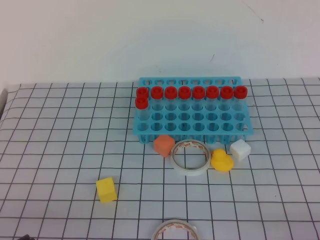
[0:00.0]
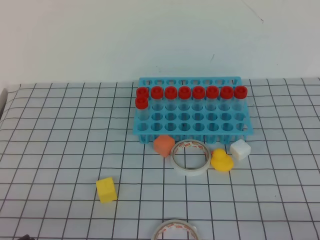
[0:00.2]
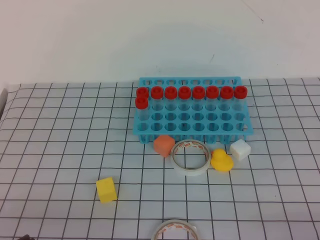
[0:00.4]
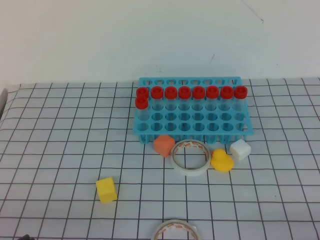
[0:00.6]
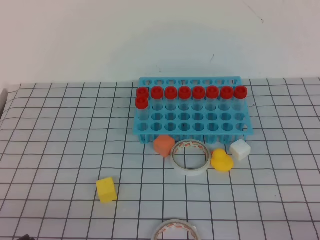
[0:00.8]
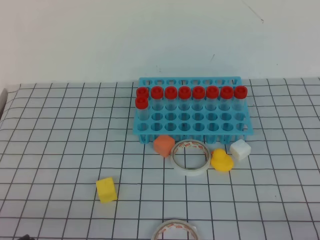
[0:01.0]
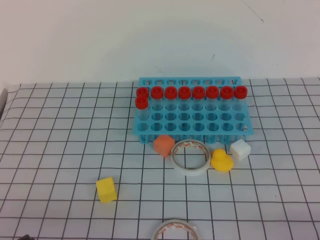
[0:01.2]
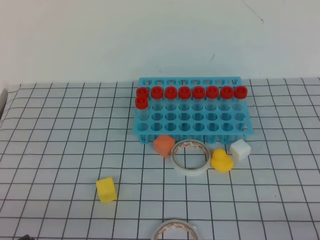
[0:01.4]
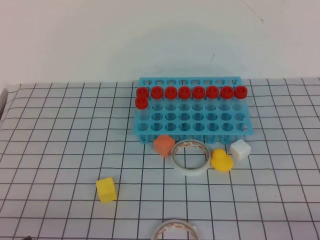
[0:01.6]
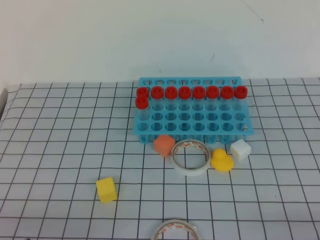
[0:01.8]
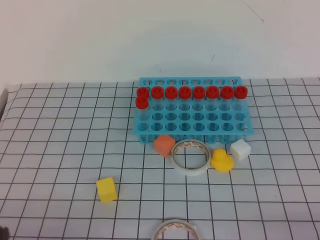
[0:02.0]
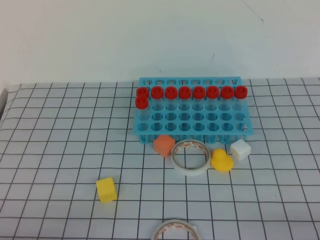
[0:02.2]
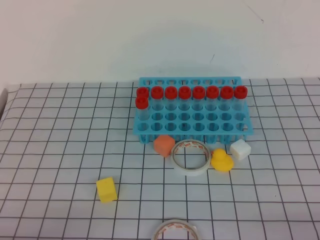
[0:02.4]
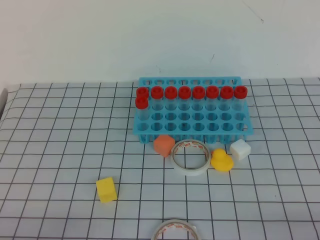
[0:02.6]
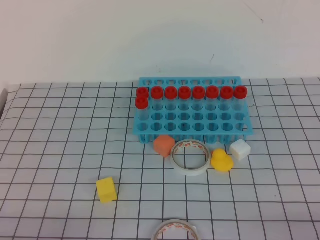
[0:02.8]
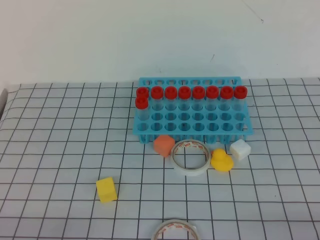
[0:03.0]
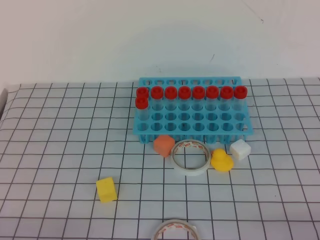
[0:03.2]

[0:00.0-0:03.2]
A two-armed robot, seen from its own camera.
0.0 to 1.6 s: Neither gripper changes place.

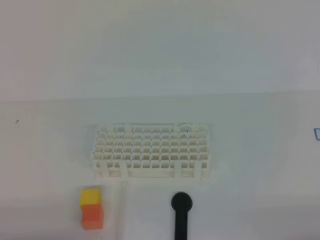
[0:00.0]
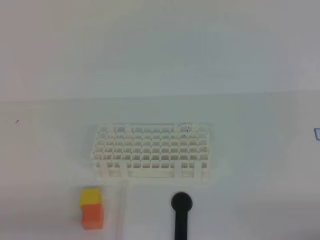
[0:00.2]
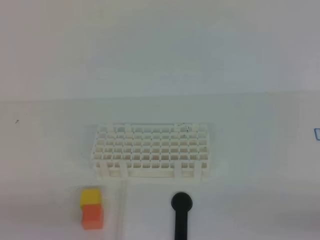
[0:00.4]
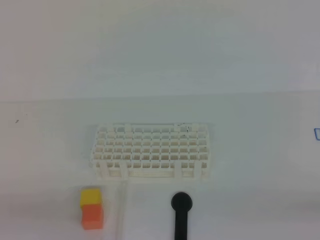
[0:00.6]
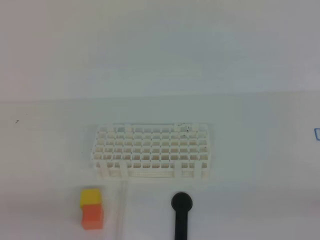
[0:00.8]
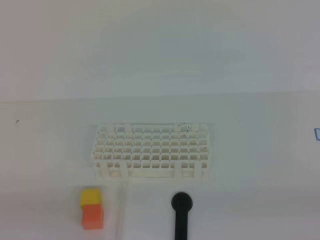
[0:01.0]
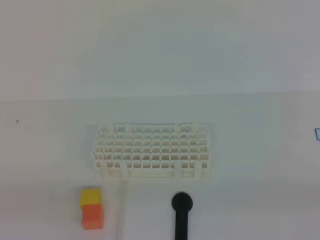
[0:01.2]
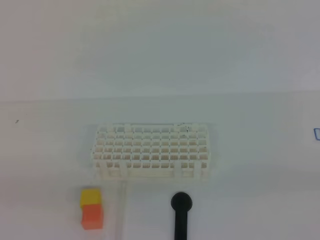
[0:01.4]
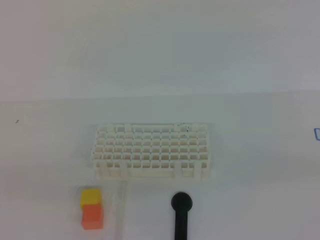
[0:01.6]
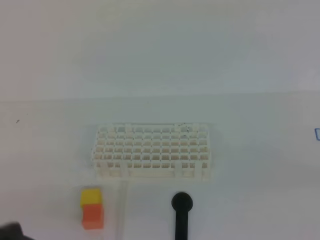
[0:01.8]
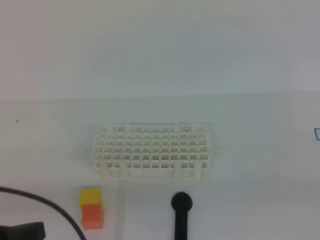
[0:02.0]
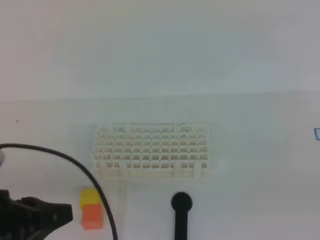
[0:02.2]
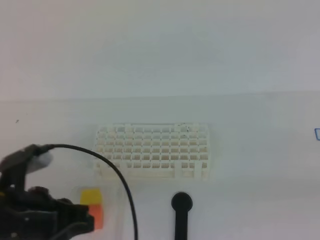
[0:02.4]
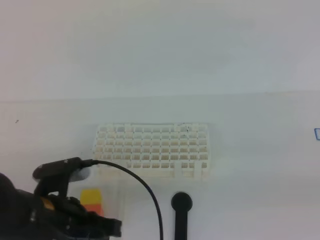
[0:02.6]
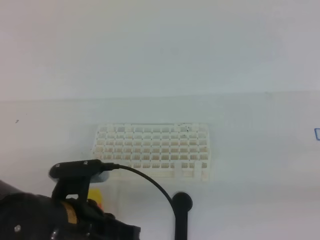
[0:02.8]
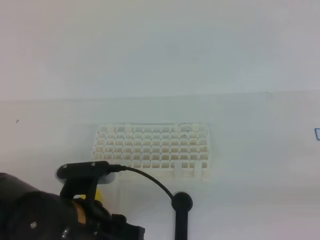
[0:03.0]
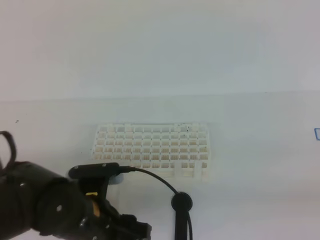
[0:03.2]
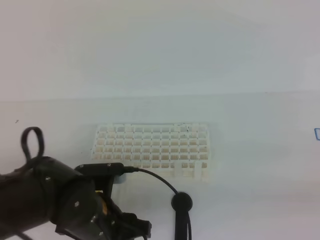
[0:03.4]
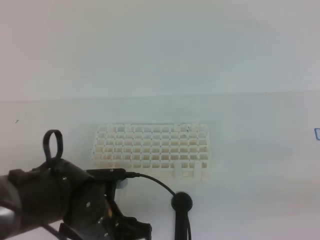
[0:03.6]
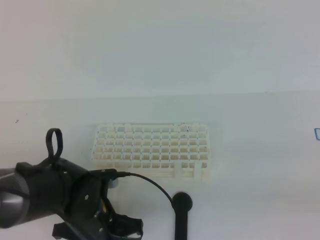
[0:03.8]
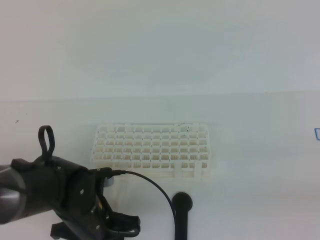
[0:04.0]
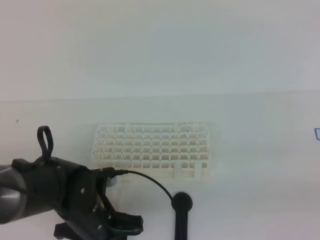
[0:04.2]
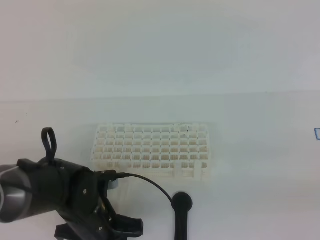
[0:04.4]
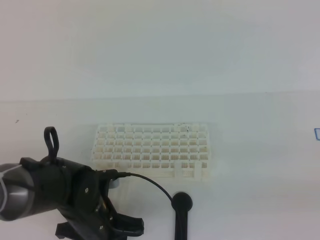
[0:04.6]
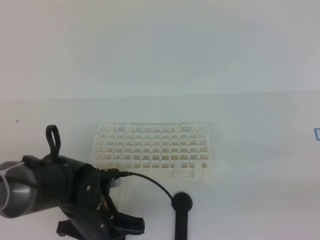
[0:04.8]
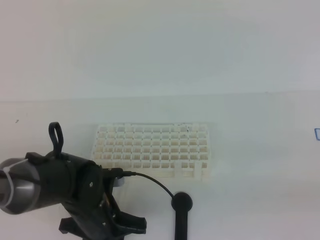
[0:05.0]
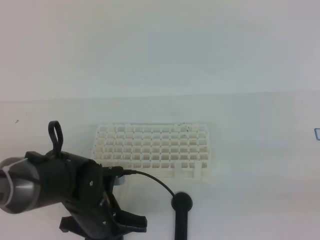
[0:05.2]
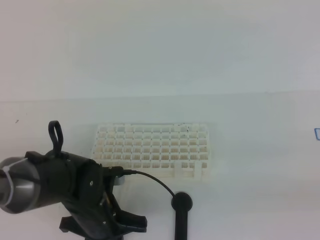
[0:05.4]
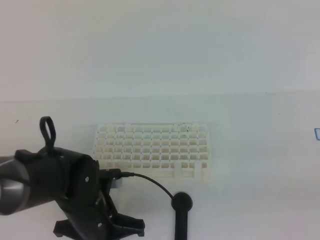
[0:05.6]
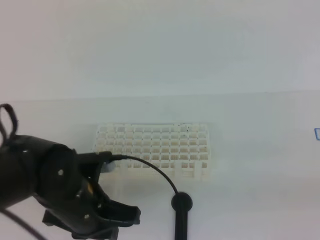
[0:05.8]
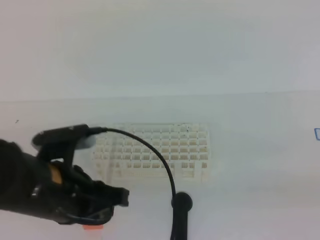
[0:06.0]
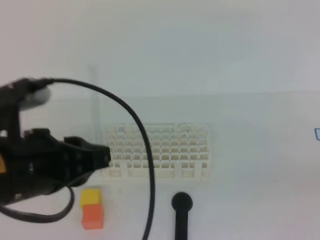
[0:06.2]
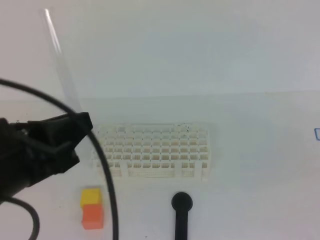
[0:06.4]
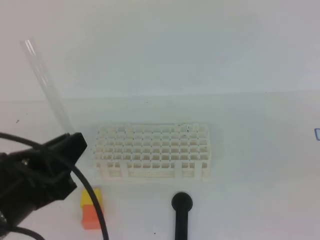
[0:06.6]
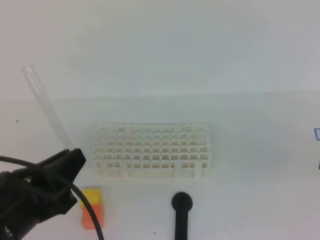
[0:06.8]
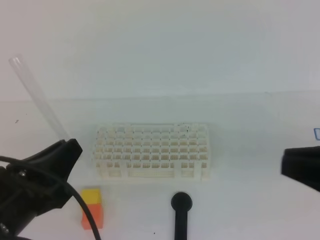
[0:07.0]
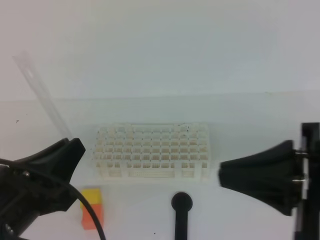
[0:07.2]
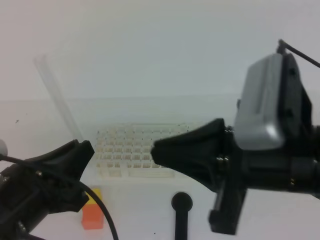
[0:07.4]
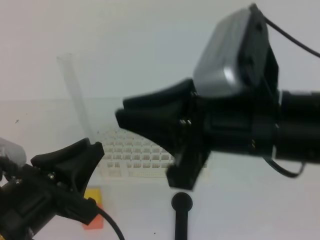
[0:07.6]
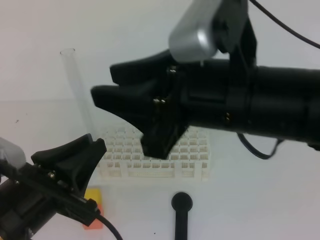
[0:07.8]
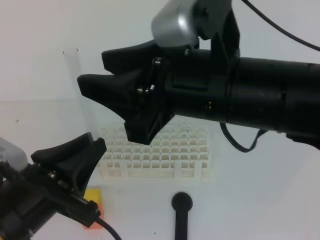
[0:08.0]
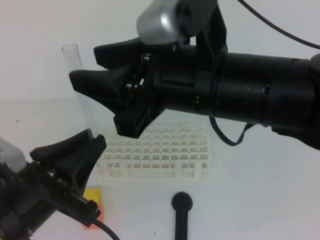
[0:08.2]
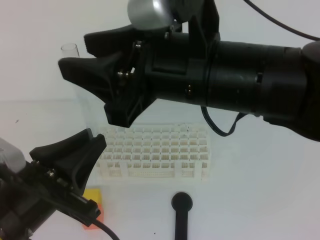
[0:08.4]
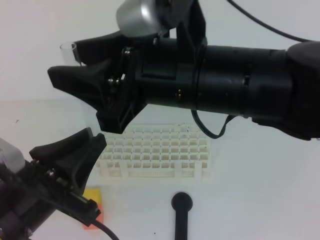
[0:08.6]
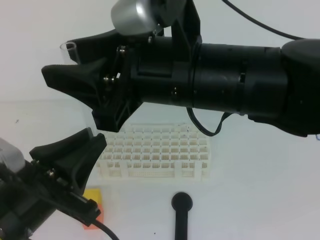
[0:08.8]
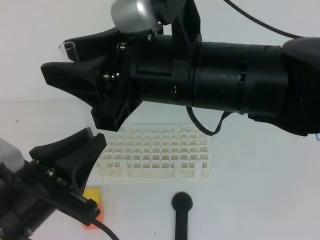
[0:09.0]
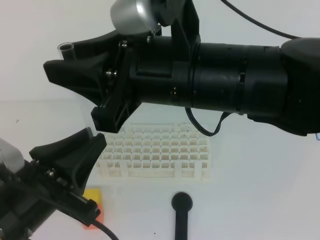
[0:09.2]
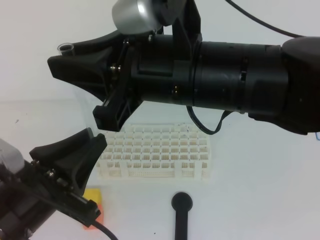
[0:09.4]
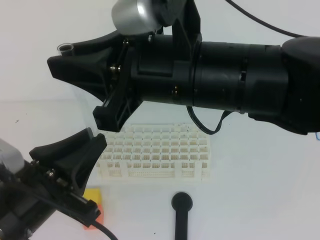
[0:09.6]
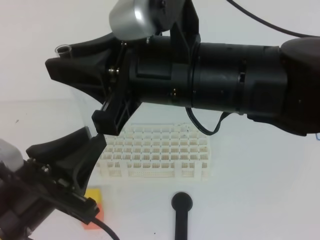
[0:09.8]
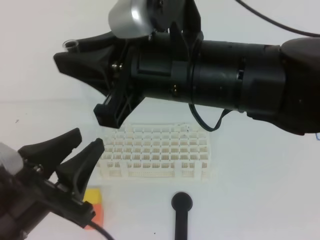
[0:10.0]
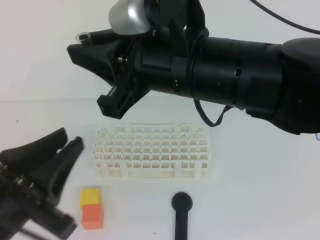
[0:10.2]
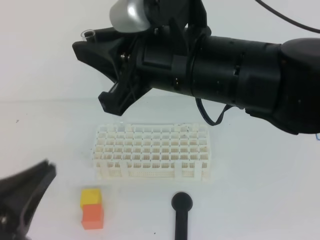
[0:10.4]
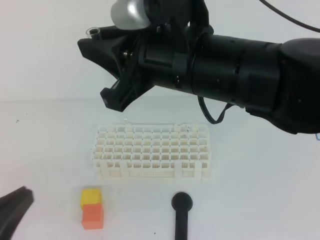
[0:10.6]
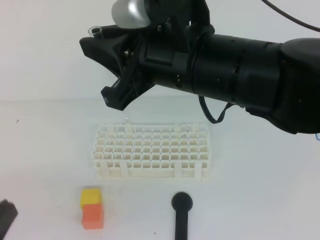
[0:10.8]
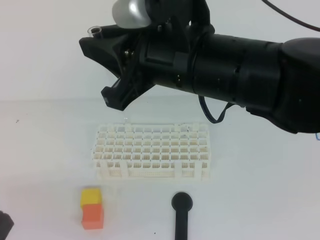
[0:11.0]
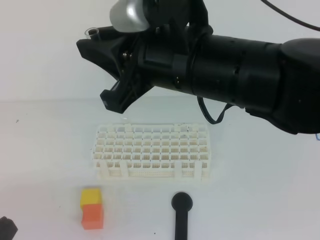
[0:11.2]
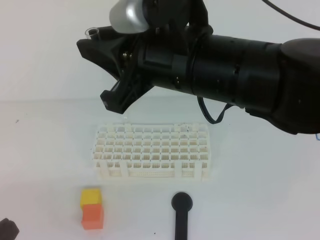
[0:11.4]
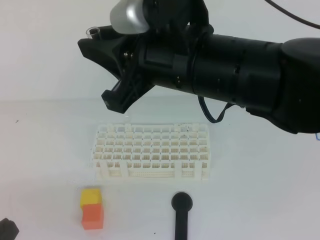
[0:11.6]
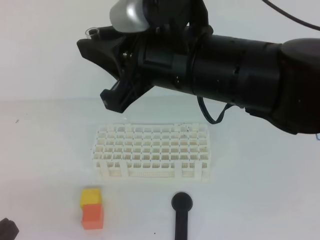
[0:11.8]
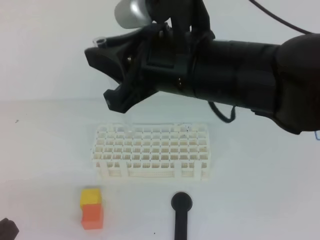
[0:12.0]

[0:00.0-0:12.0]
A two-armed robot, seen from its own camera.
1.6 to 3.0 s: The left gripper goes roughly 20 cm to the right, forward and downward, and opens its fingers.
3.0 to 4.4 s: The left gripper is displaced downward and forward by about 10 cm.
4.4 to 6.0 s: The left gripper goes some 15 cm upward, and closes.
6.0 to 7.6 s: The right gripper goes some 25 cm to the left and forward; the left gripper heads backward, covering approximately 5 cm.
7.6 to 9.0 s: The right gripper moves to the left, about 5 cm, and opens.
9.0 to 10.4 s: The right gripper closes, while the left gripper shifts by about 5 cm, and opens and closes again.
10.4 to 12.0 s: The left gripper shifts by about 10 cm.

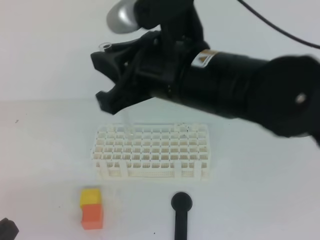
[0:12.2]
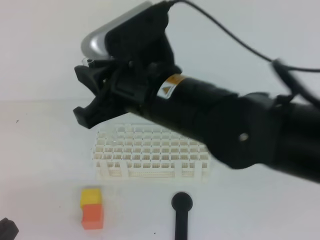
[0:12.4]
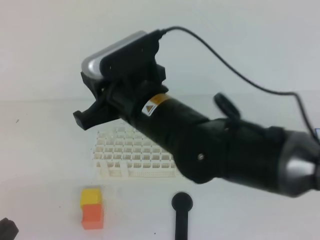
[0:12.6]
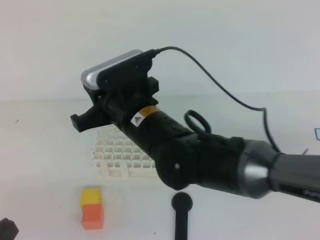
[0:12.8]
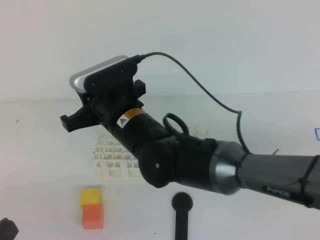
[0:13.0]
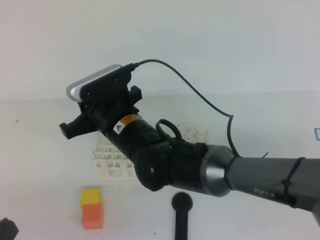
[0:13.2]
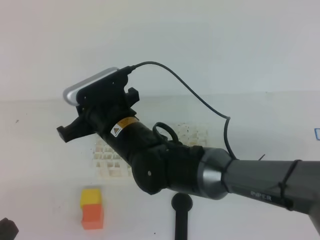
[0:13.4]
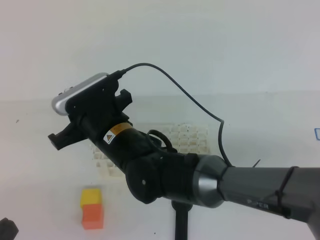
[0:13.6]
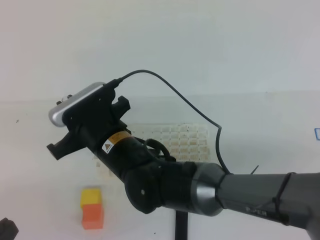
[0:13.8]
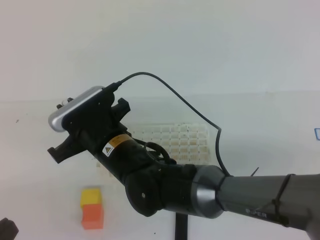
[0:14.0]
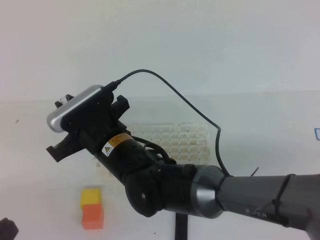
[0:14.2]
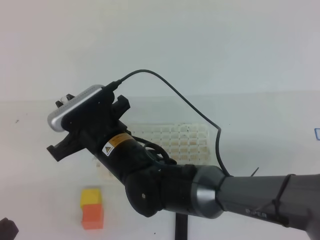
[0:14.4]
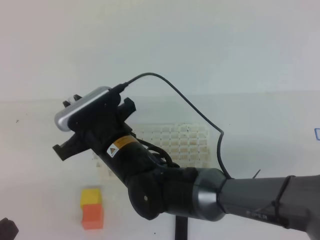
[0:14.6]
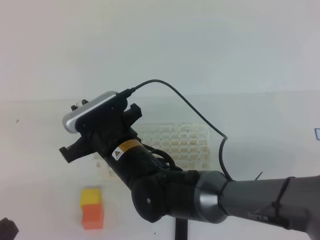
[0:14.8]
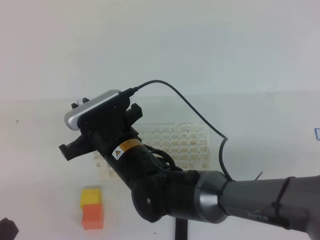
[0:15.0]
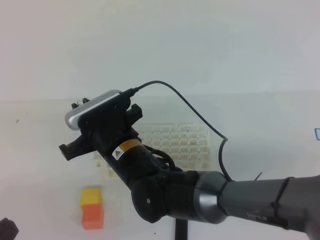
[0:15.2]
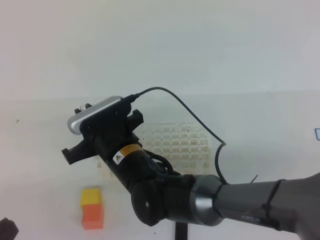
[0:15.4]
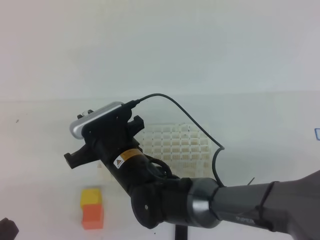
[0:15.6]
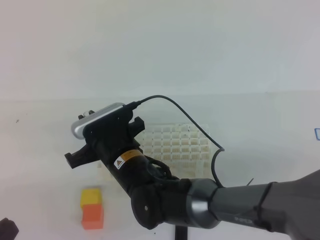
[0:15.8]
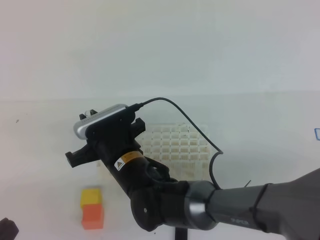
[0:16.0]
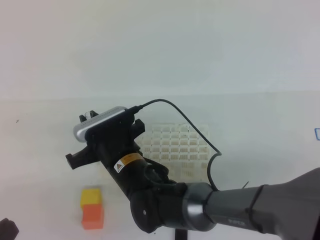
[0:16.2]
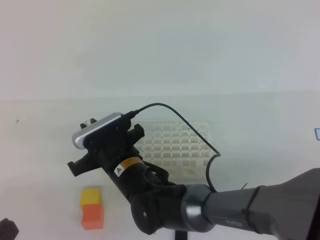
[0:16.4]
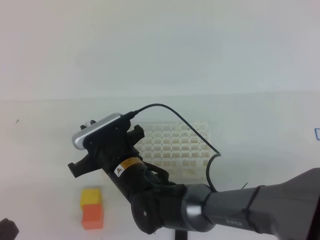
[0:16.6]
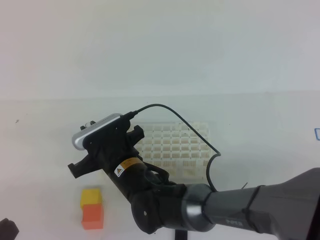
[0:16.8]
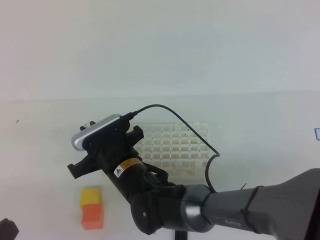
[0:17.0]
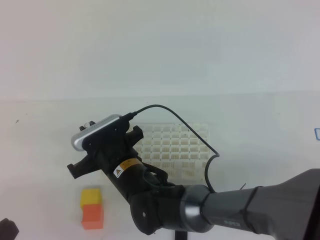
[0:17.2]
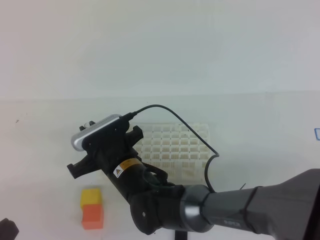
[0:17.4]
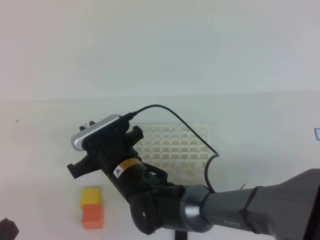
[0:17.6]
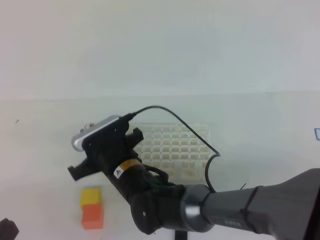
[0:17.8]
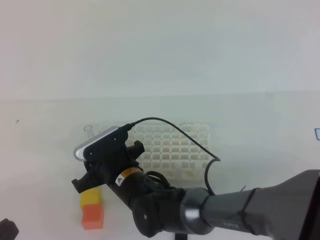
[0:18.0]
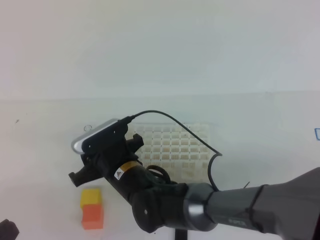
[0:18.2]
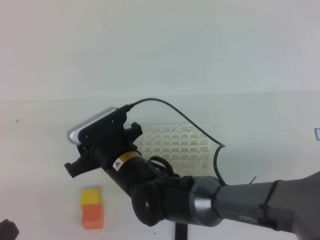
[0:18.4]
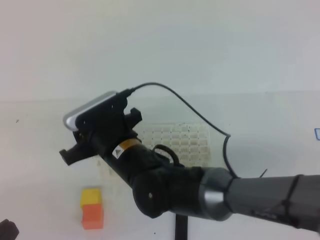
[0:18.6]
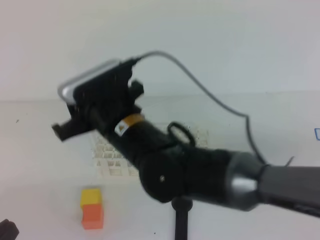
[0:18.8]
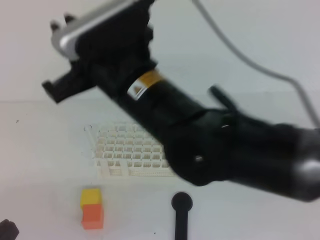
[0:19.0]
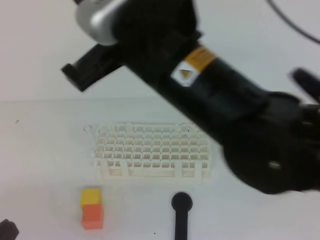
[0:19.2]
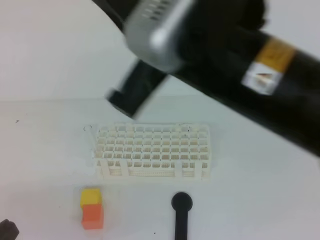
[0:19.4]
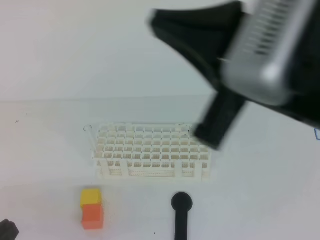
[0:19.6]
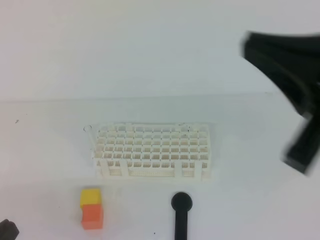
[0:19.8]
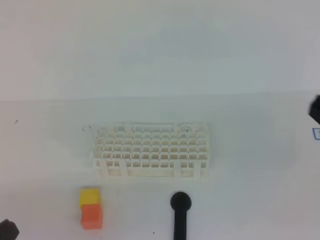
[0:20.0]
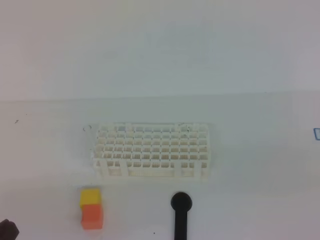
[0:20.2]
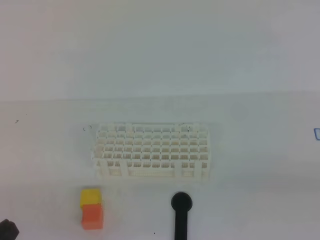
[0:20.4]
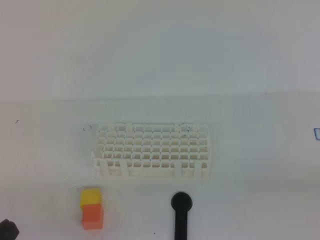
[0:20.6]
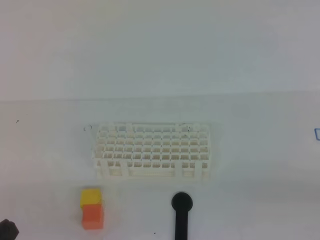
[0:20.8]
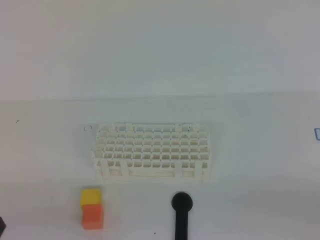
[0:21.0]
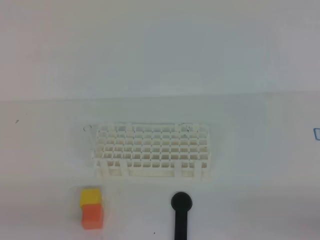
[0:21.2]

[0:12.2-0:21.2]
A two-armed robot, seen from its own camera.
12.2 to 13.8 s: The right gripper is displaced downward and to the left by roughly 20 cm.
13.8 to 15.2 s: The grippers make only small movements.
15.2 to 16.6 s: The right gripper goes approximately 5 cm downward.
16.6 to 18.2 s: The right gripper opens up.
18.2 to 19.8 s: The right gripper moves upward, to the right and backward, some 40 cm, and closes.
19.8 to 21.2 s: The right gripper travels downward, to the right and backward by approximately 25 cm.
